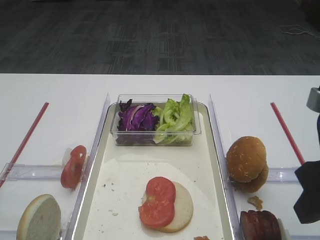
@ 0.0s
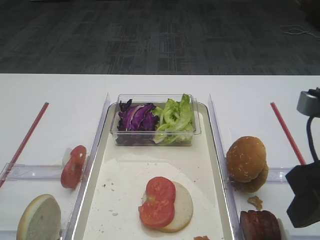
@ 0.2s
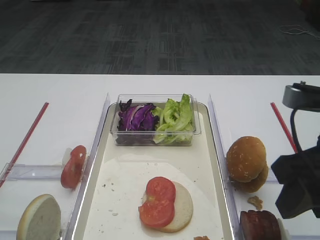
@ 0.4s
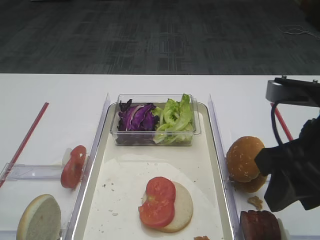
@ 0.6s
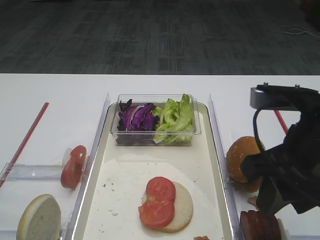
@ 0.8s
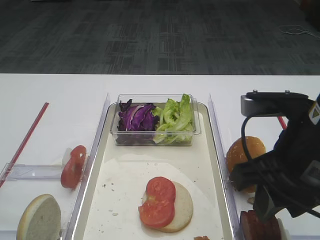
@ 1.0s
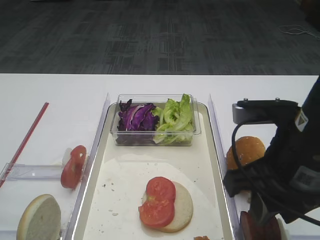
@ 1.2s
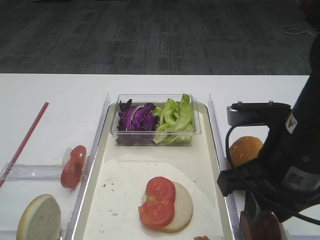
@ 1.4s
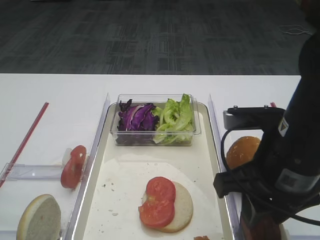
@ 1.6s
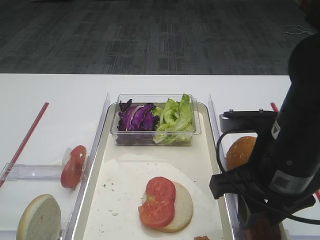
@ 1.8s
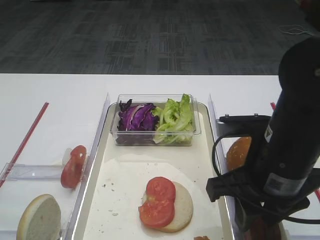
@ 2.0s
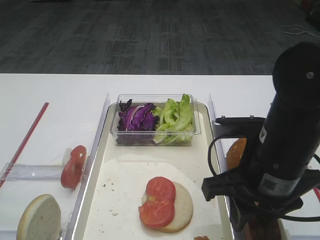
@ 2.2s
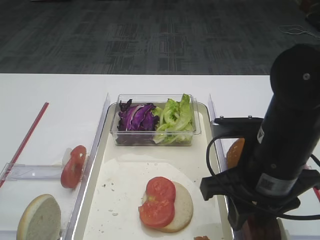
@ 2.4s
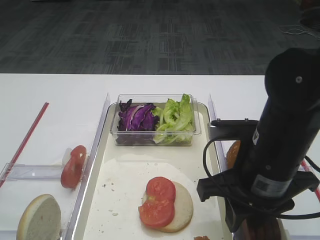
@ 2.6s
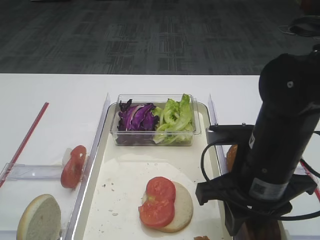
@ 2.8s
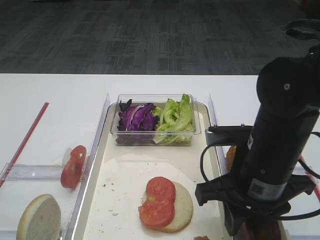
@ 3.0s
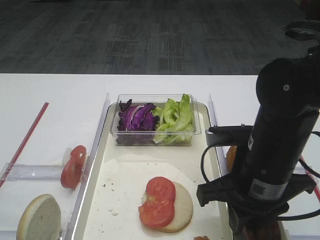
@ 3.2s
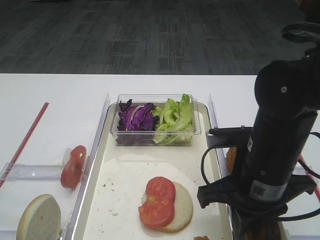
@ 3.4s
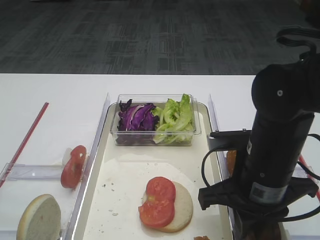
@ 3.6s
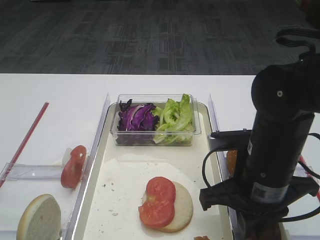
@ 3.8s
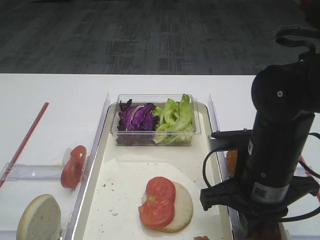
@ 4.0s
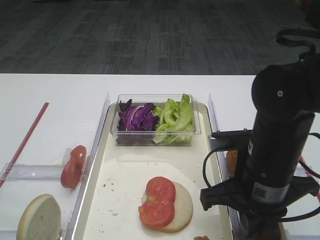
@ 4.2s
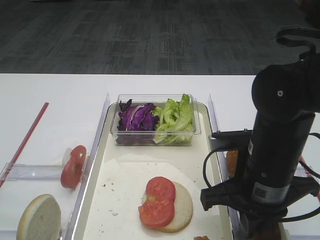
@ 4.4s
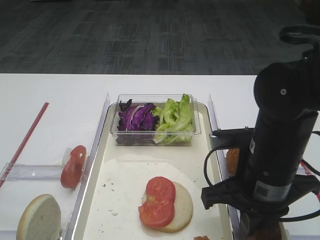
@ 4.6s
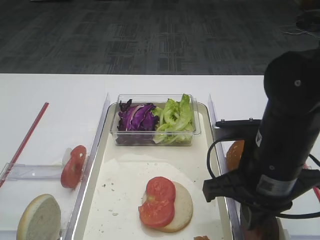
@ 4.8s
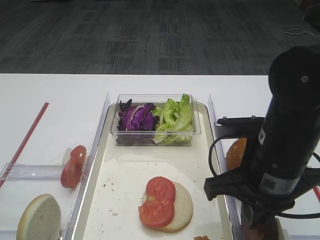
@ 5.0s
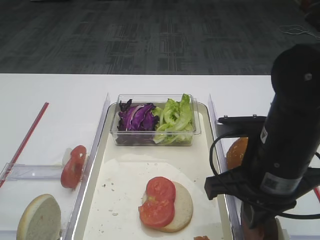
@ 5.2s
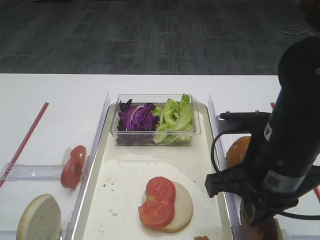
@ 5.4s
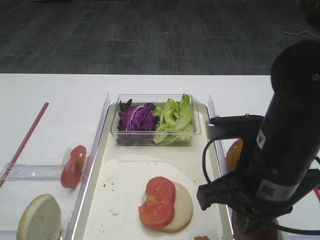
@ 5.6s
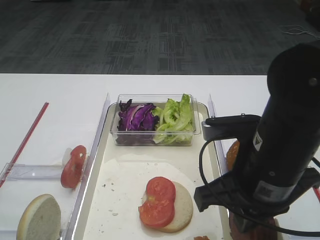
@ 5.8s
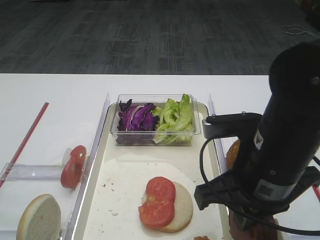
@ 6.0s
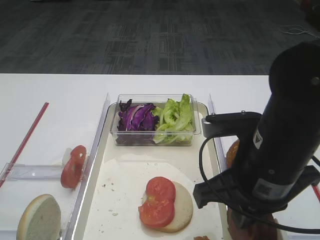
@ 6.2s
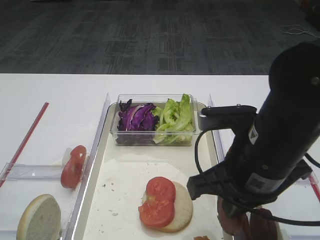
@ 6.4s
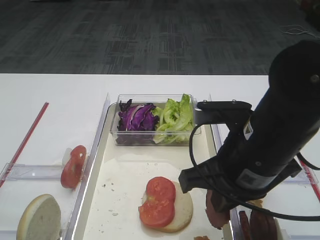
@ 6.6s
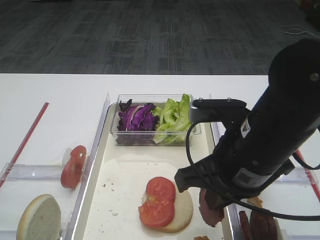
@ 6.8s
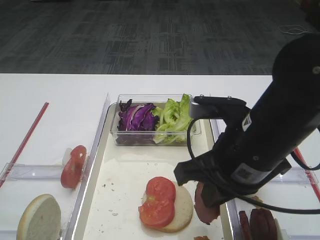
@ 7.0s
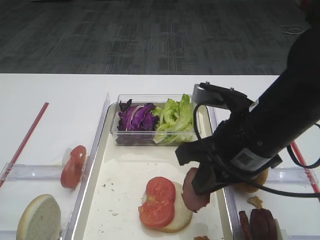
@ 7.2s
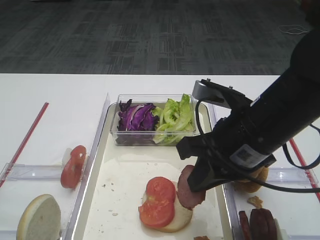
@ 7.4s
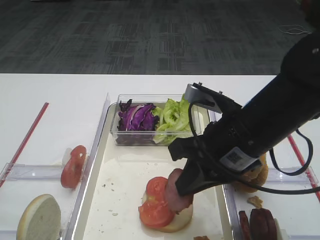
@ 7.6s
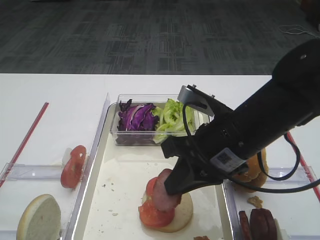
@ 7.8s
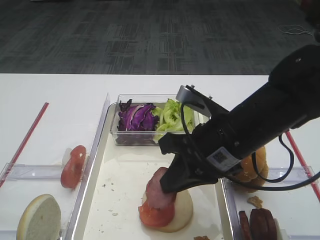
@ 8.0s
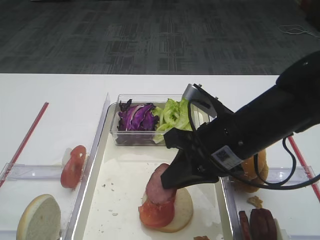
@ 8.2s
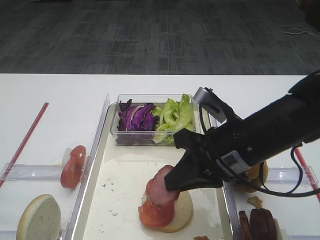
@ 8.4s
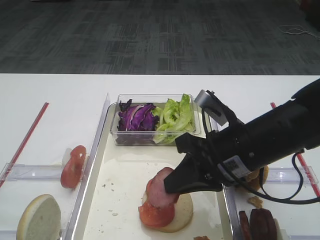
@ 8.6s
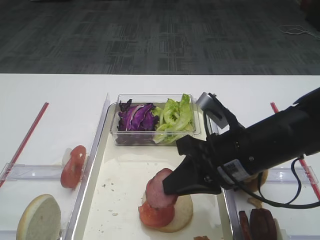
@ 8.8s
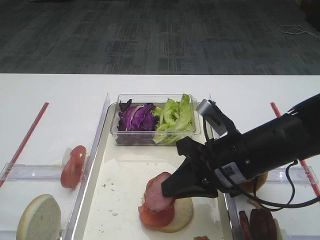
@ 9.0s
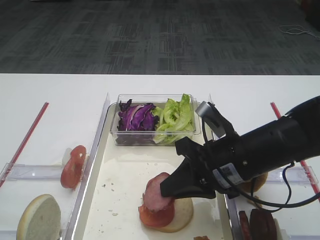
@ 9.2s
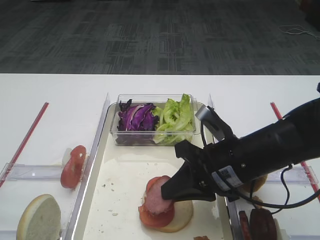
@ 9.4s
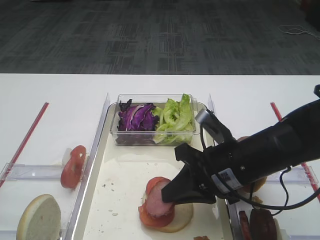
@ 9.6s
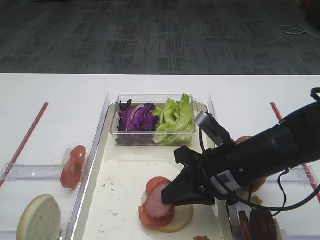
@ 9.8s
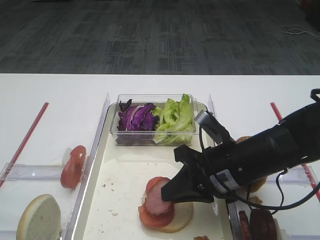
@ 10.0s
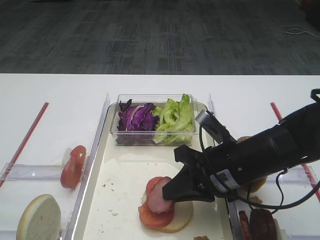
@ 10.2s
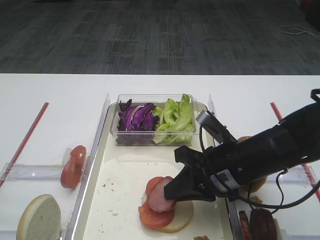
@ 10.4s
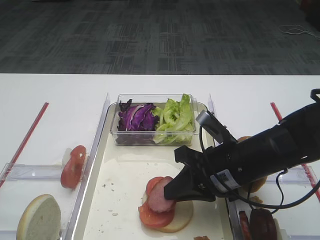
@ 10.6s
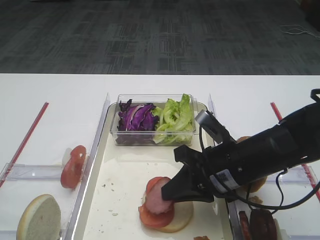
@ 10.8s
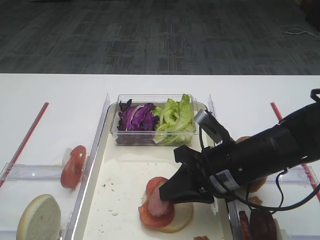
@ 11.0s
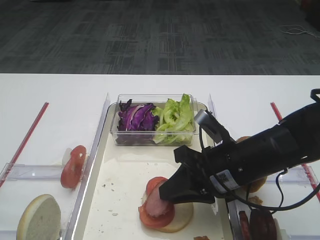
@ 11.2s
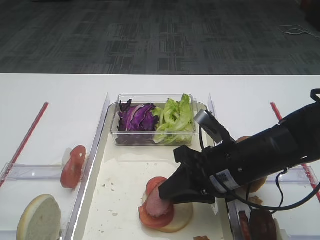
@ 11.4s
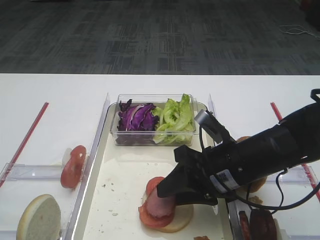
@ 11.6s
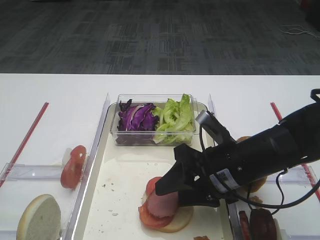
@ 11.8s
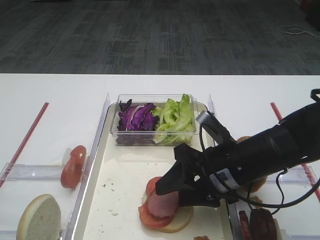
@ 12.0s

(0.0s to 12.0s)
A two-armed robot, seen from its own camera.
Step, 0.0s - 4.6s: Pick up the cutlet with the right gripper.
0.0s - 1.6s: The right gripper travels to the left by roughly 5 cm.
1.6s - 3.0s: The grippers make only small movements.
3.0s - 4.4s: The right gripper closes.
4.4s - 6.0s: The grippers move only a little.
7.6s - 9.0s: The right gripper travels downward by some 5 cm.
9.0s - 10.4s: The grippers stay close to where they were, moving slightly.
10.4s - 12.0s: The right gripper opens its fingers.

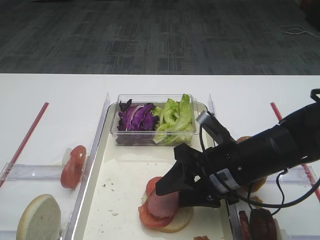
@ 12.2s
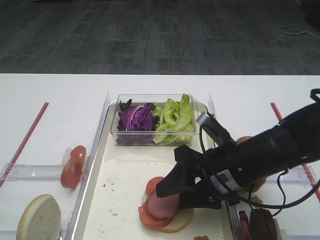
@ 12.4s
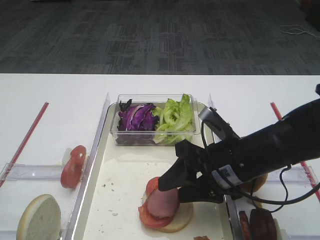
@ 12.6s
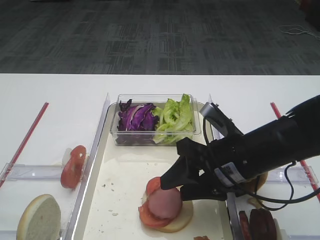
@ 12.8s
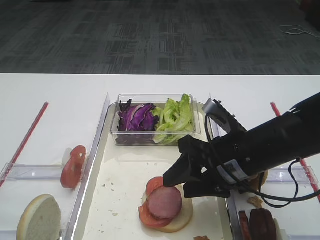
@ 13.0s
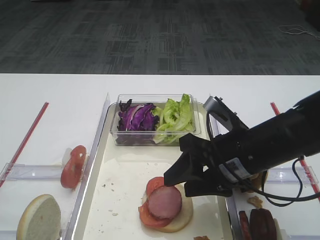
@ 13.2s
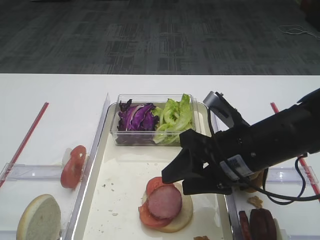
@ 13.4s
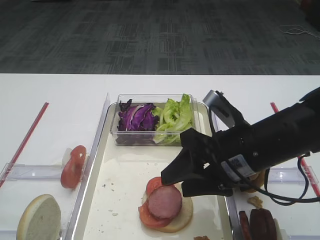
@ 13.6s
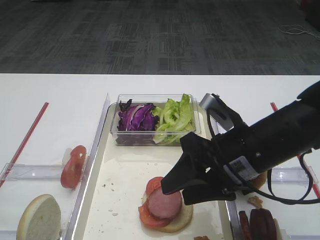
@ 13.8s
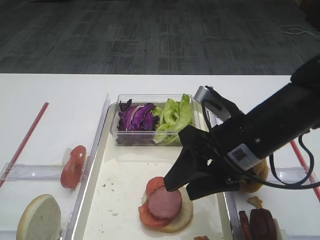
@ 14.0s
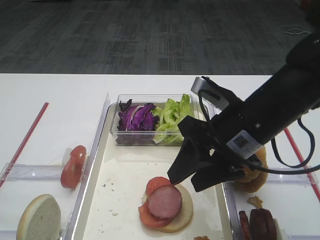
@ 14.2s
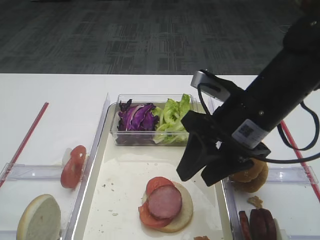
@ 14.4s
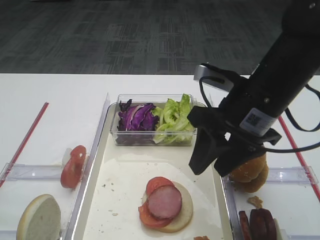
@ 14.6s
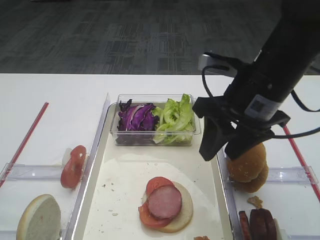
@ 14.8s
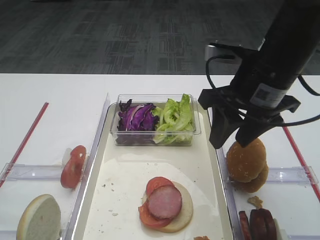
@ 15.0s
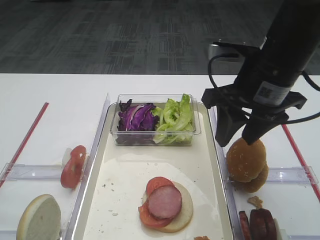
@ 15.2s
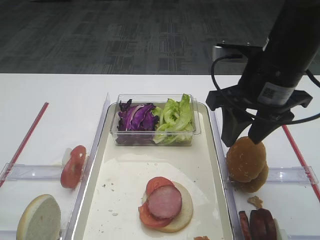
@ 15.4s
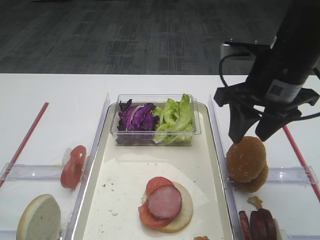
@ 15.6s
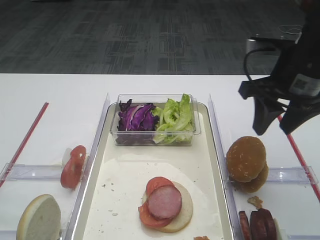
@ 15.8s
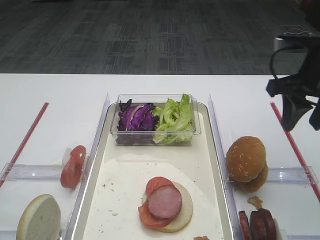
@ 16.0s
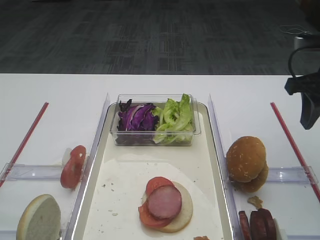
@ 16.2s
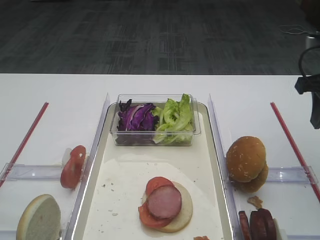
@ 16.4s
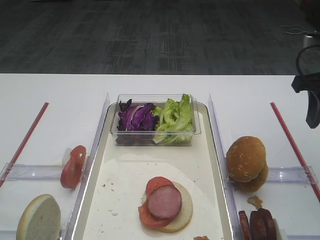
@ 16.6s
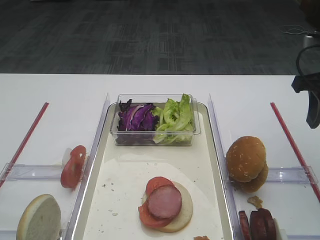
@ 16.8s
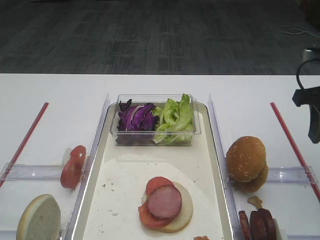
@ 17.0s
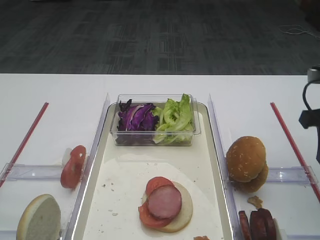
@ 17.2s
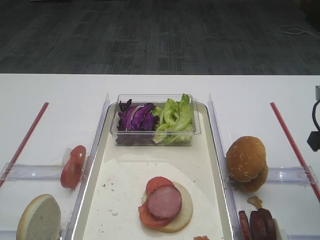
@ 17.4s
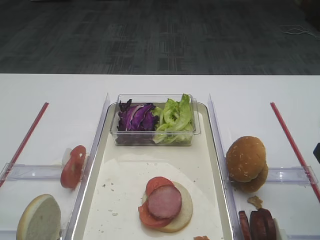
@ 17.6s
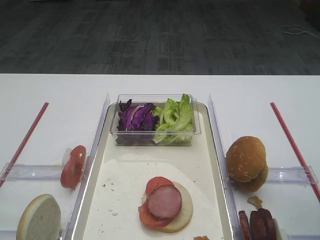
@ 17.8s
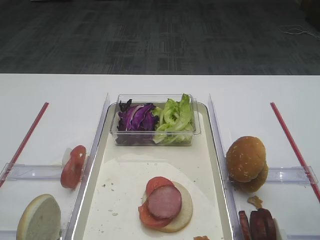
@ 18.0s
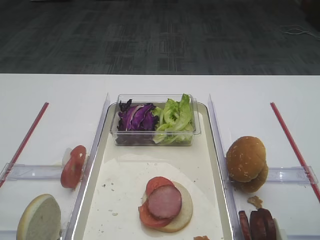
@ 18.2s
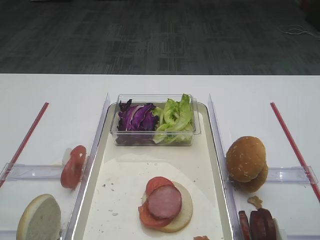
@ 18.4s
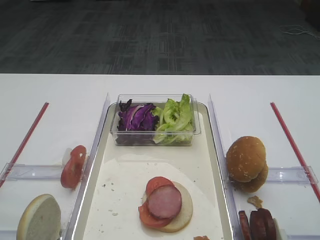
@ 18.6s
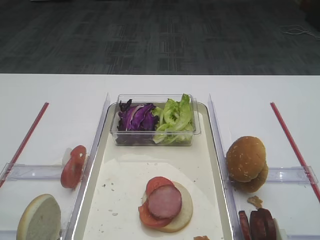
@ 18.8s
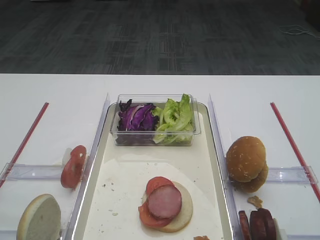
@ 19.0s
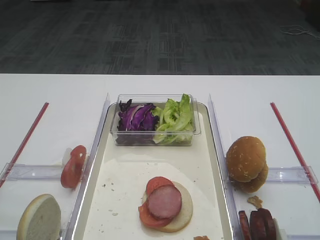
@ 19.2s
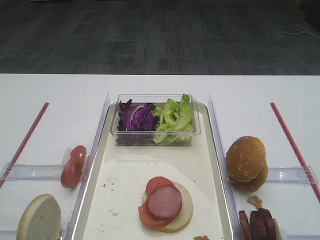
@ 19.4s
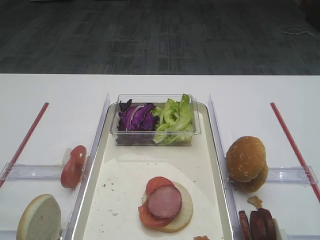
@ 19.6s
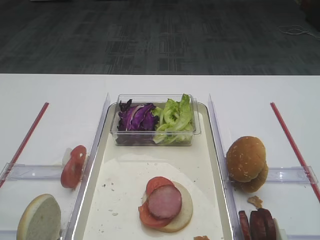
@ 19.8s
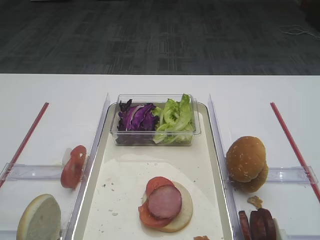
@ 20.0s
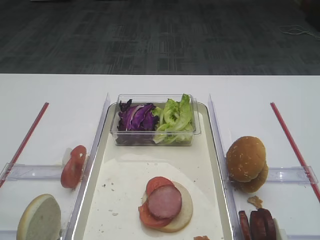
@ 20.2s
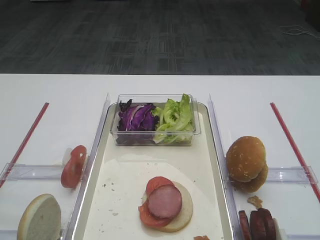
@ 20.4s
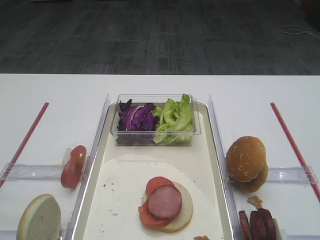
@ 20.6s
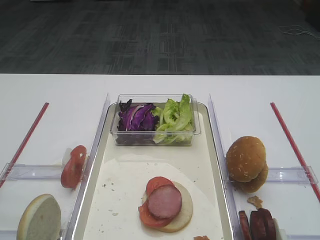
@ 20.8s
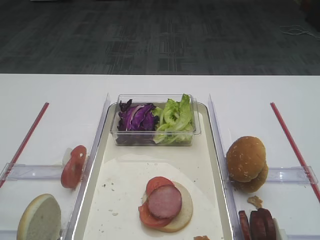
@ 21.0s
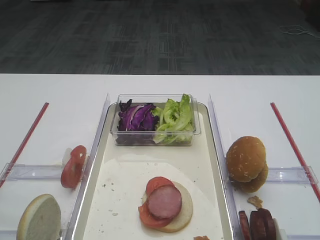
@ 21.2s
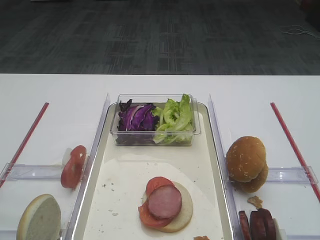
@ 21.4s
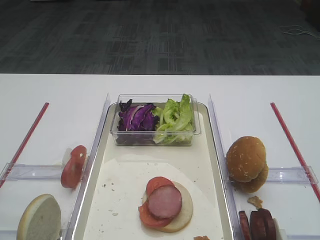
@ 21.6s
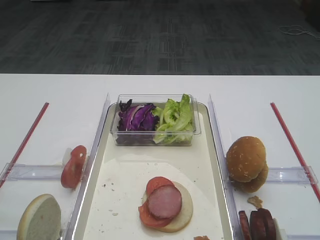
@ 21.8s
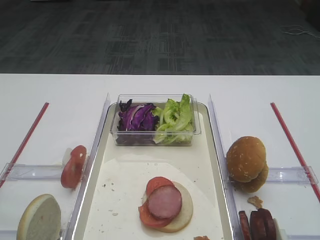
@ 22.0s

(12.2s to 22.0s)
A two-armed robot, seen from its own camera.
12.2s - 13.6s: There are only small adjustments of the grippers.
13.6s - 15.0s: The right gripper is displaced upward and forward by some 10 cm.
15.0s - 16.4s: The right gripper goes about 15 cm to the right.
16.4s - 17.8s: The right gripper travels backward by some 10 cm.
17.8s - 19.2s: The right gripper shifts approximately 15 cm backward.
20.6s - 22.0s: Both grippers stay about where they are.

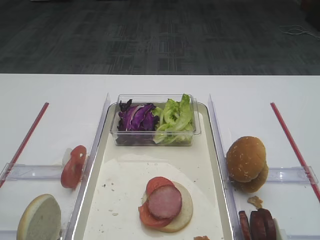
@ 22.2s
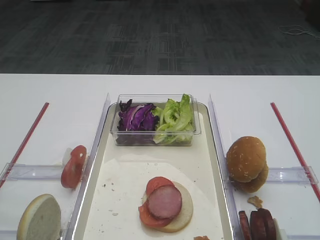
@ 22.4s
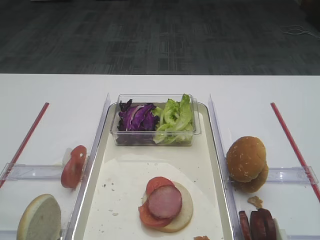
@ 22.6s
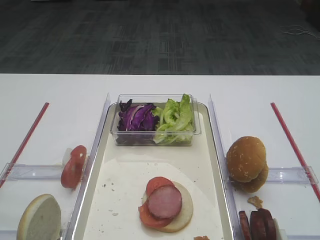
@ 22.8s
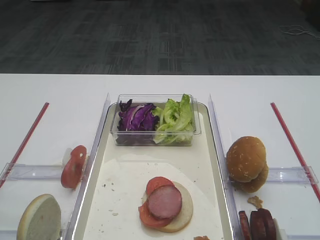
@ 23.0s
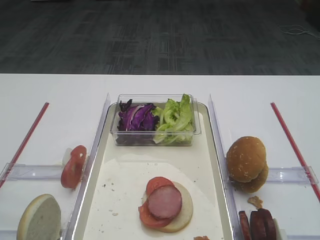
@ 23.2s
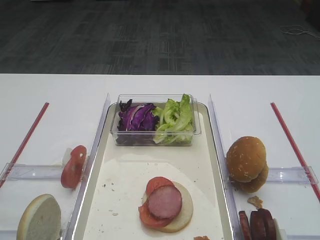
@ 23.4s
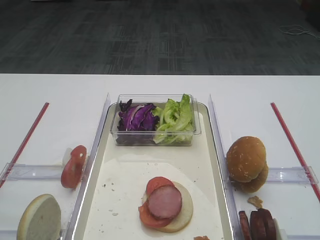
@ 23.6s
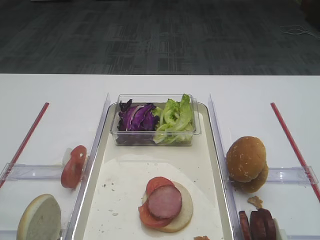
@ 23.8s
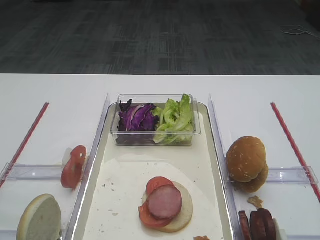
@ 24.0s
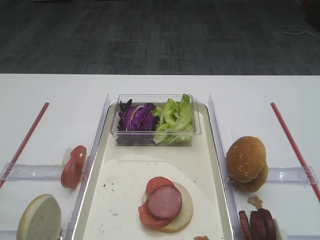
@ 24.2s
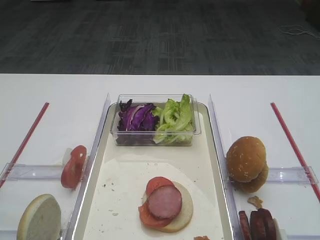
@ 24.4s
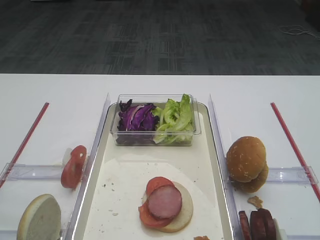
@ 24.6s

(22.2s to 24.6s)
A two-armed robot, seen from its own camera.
22.2s - 24.6s: The two grippers keep their place.
